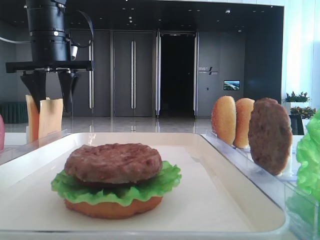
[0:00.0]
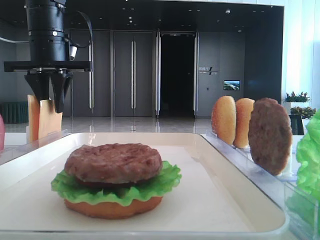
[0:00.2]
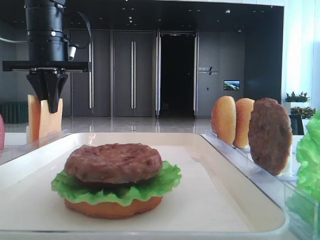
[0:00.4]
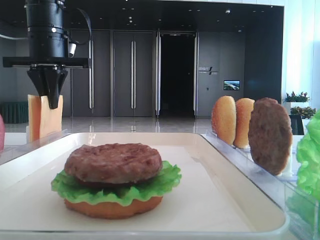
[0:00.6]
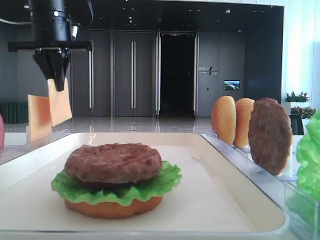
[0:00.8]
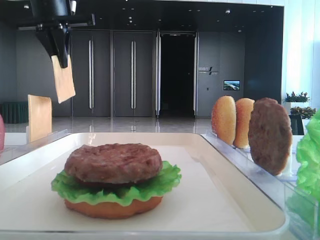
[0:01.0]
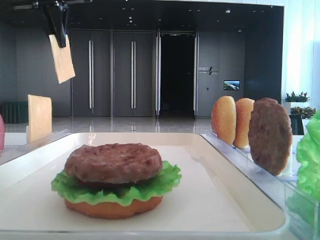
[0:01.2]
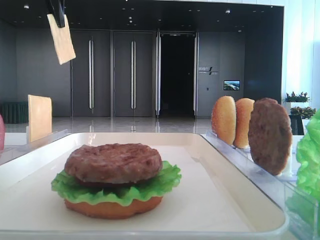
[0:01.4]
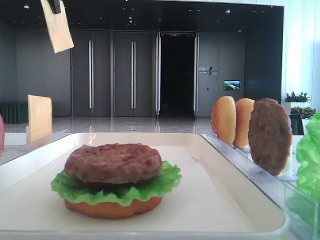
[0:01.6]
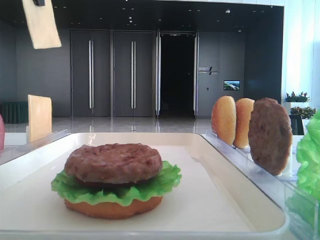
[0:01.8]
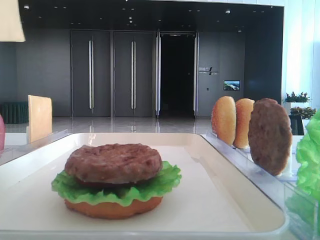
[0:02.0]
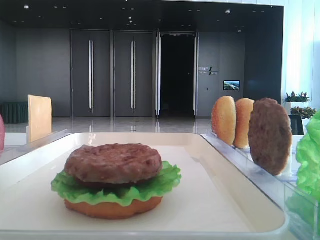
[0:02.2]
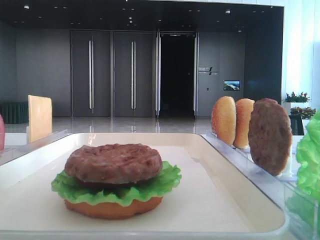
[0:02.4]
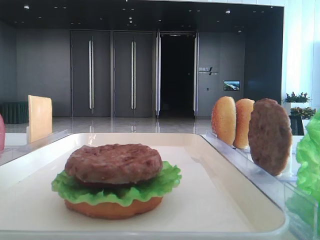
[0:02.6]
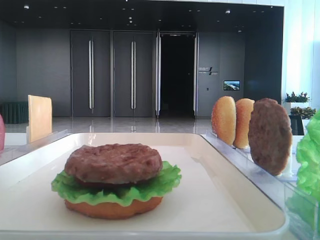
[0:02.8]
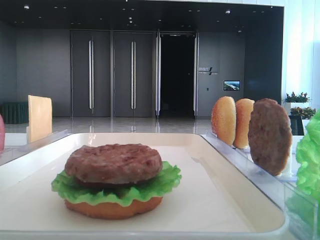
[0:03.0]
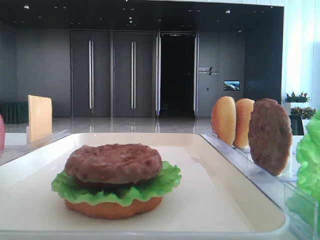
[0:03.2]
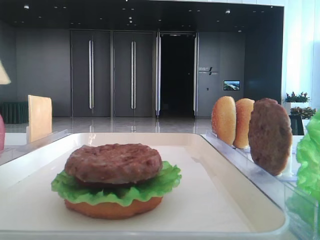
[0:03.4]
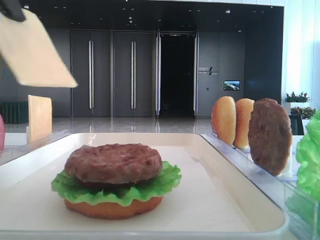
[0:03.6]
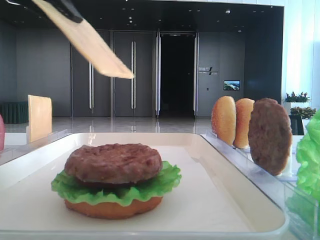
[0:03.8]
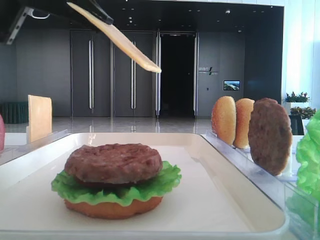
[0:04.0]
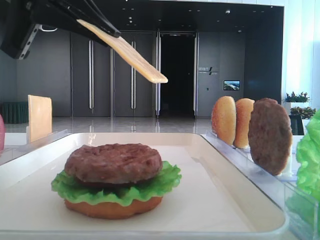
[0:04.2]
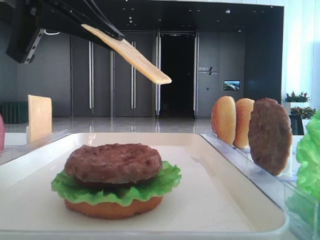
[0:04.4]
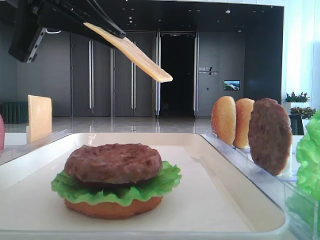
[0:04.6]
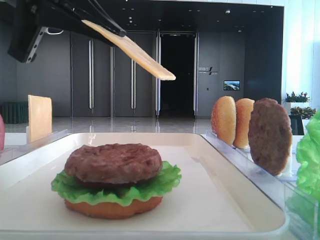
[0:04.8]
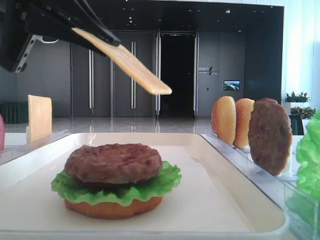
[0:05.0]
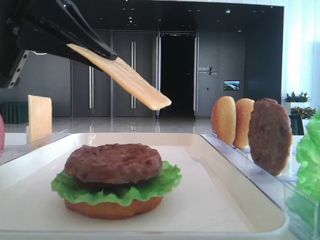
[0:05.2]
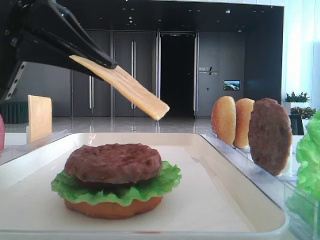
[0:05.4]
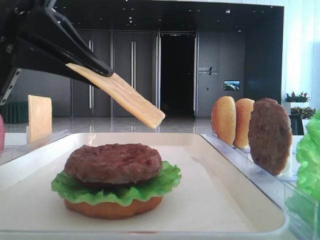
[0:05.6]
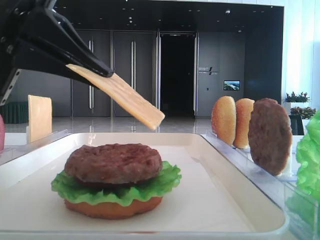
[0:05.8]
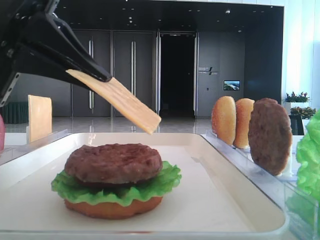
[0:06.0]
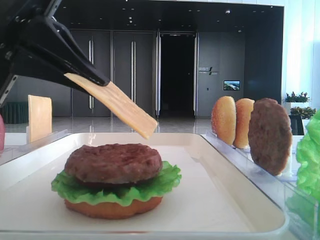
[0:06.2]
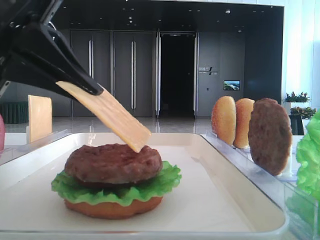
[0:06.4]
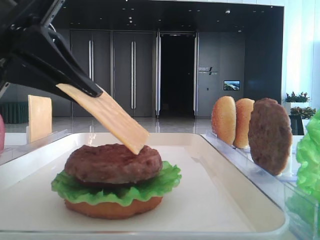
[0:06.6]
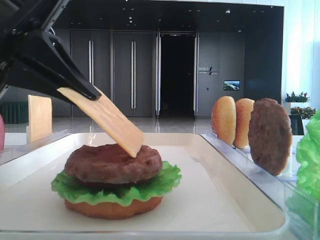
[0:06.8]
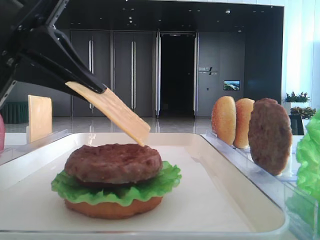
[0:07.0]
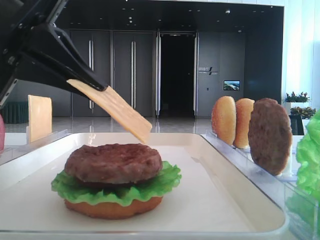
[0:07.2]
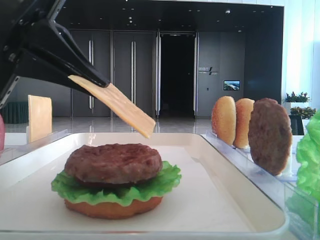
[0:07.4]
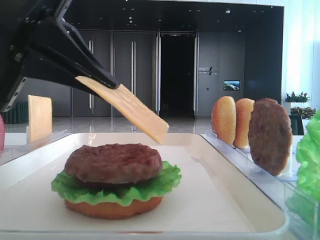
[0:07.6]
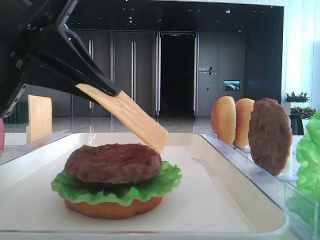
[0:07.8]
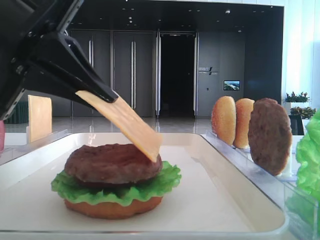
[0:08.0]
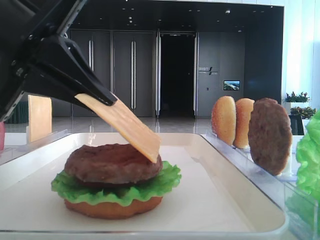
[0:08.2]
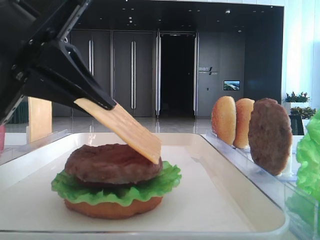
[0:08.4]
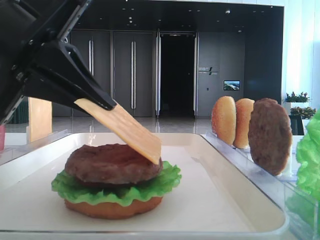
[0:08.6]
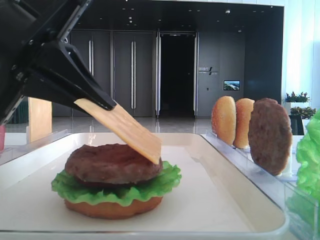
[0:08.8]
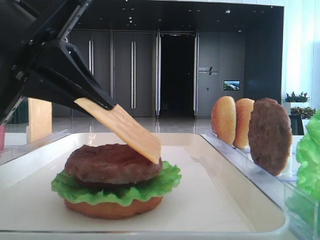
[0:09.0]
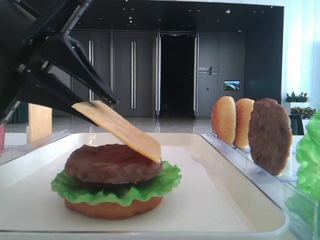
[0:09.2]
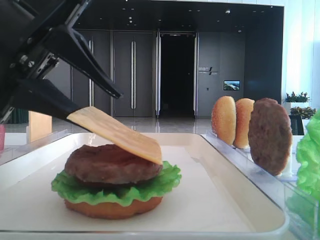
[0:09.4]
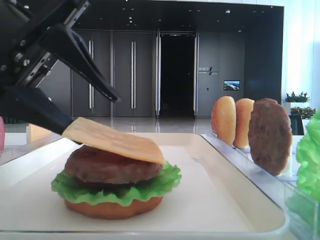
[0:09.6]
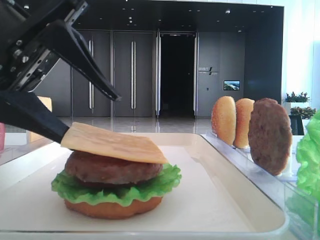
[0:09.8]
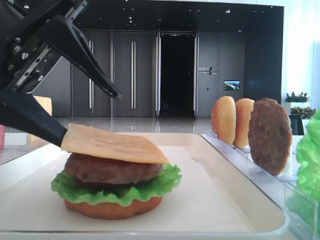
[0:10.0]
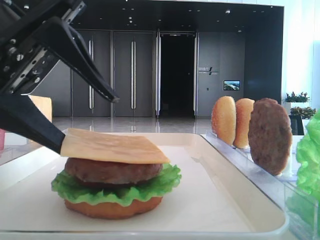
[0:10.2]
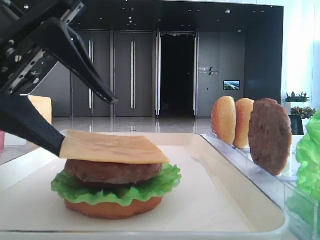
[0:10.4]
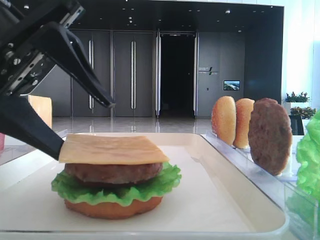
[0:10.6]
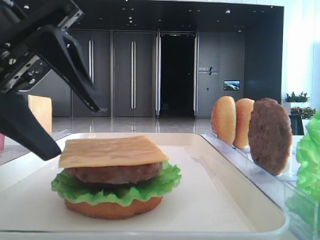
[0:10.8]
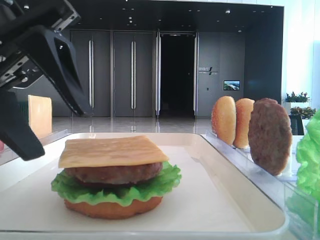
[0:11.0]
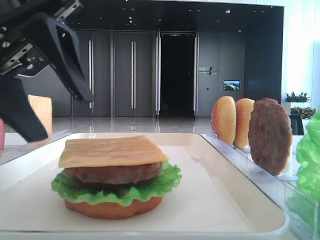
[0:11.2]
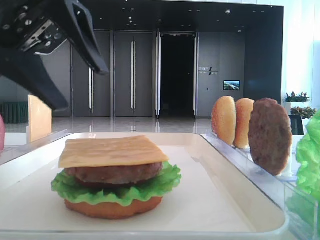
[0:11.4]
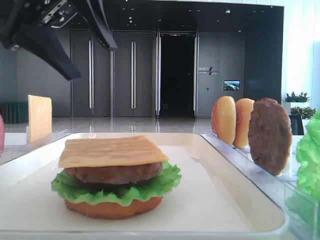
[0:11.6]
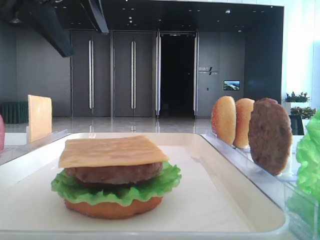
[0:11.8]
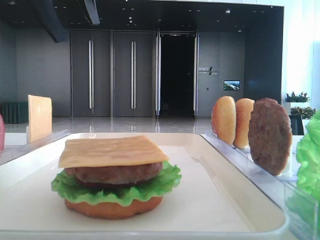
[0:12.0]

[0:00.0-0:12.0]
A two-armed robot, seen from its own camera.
Step, 0:00.4 to 0:10.8: Place the cheese slice on the patty with the left hand.
0:00.0 to 0:01.6: The left gripper shifts approximately 15 cm upward, and closes its fingers.
0:01.6 to 0:03.0: The left gripper goes some 25 cm backward.
0:03.0 to 0:04.4: The left gripper is displaced forward, to the right and downward by about 20 cm.
0:04.4 to 0:06.0: The left gripper ends up about 5 cm from where it was.
0:06.0 to 0:07.6: The grippers stay close to where they were, moving slightly.
0:07.6 to 0:09.0: The two grippers keep their place.
0:09.0 to 0:10.4: The left gripper opens up.
0:10.4 to 0:12.0: The left gripper heads upward and forward, covering about 20 cm.
